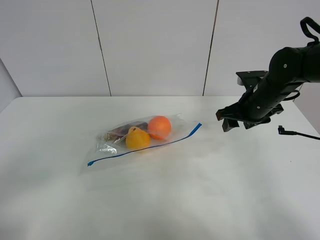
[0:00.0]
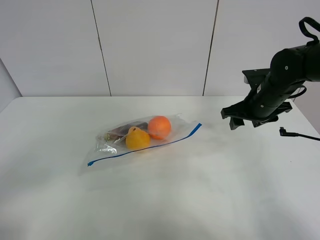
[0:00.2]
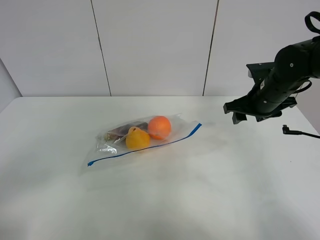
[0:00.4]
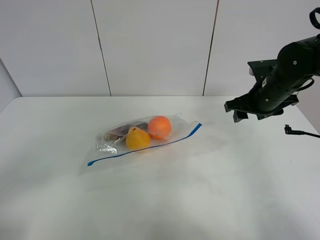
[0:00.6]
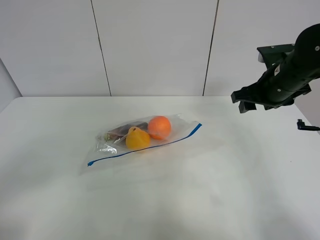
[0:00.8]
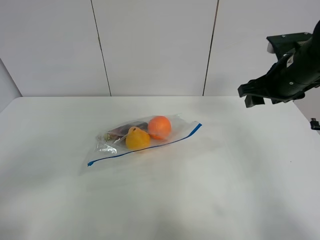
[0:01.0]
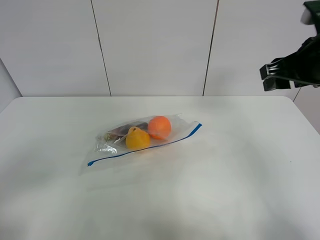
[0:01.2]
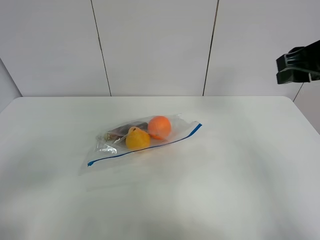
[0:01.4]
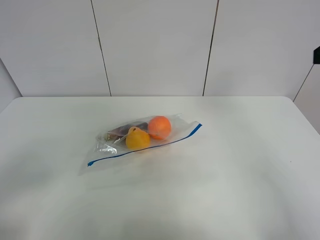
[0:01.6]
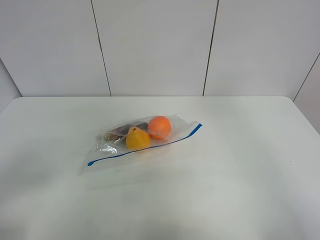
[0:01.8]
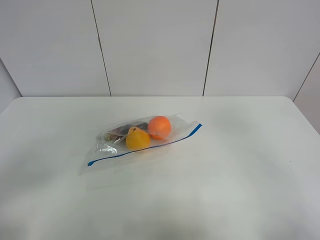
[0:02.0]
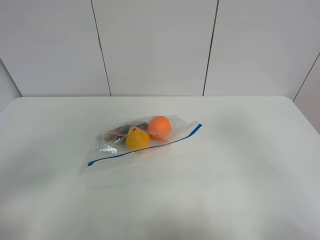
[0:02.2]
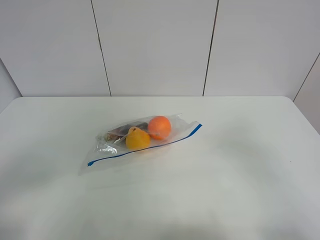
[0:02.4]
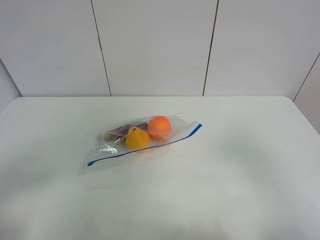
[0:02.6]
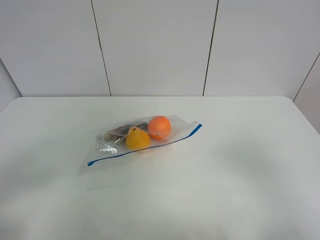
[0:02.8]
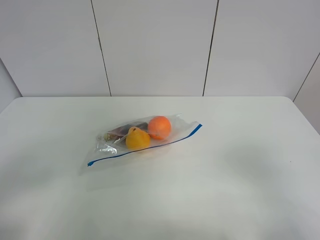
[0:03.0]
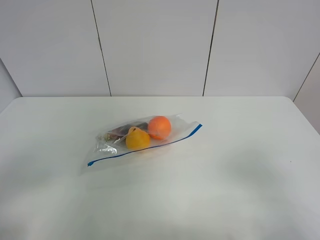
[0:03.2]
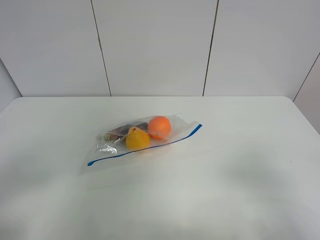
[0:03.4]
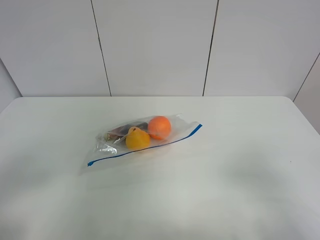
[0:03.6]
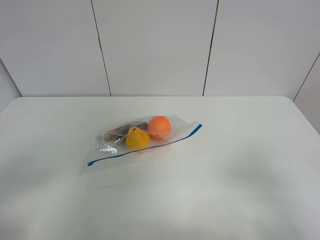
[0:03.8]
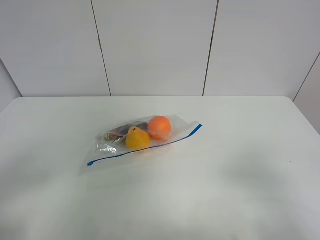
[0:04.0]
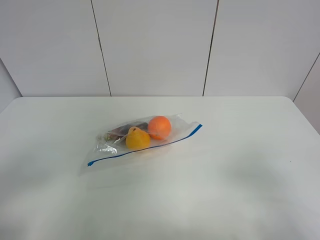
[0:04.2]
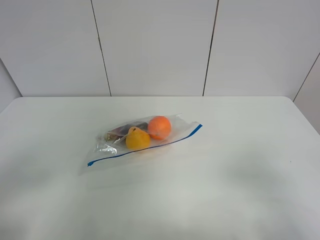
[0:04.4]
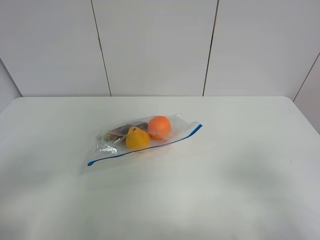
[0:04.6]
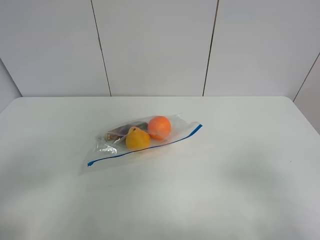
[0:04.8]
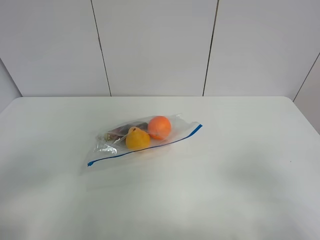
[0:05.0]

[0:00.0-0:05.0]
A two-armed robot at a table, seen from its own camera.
0:00.0 to 0:01.6: The right gripper moves upward and backward, approximately 30 cm.
0:01.6 to 0:03.4: The right gripper moves backward and downward, roughly 20 cm.
0:03.4 to 0:05.0: Both grippers stay about where they are.
